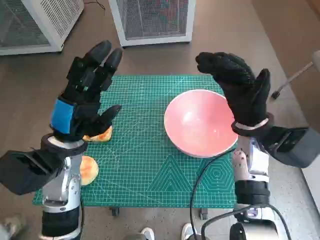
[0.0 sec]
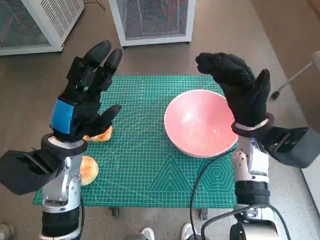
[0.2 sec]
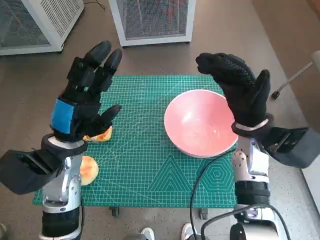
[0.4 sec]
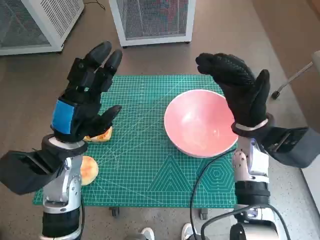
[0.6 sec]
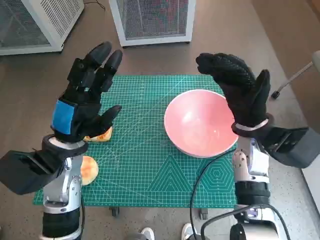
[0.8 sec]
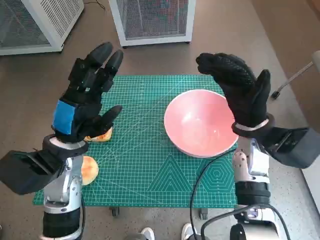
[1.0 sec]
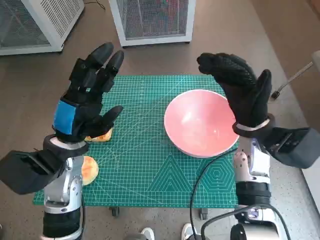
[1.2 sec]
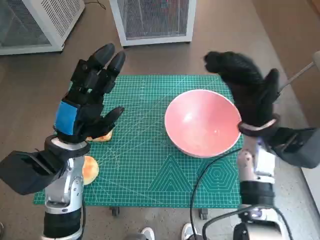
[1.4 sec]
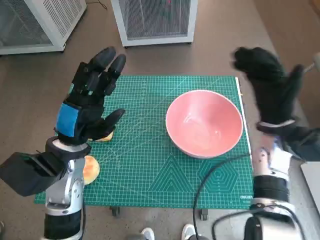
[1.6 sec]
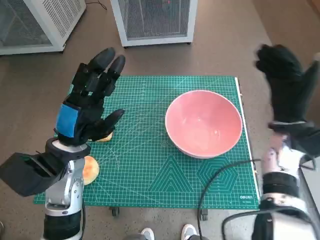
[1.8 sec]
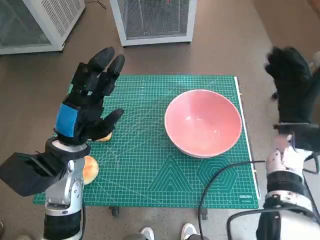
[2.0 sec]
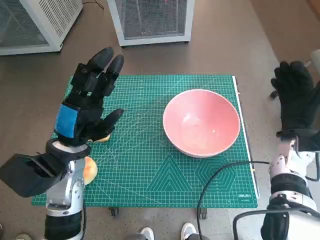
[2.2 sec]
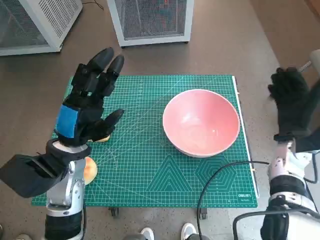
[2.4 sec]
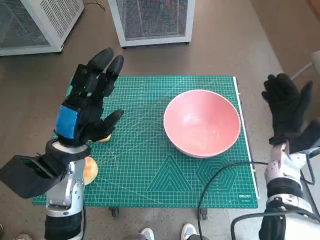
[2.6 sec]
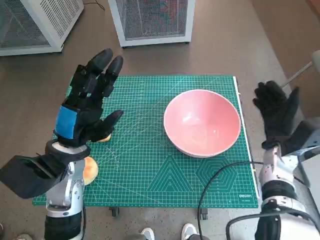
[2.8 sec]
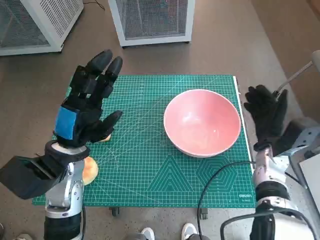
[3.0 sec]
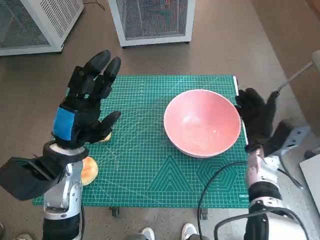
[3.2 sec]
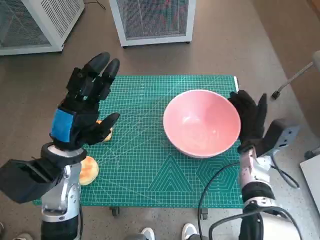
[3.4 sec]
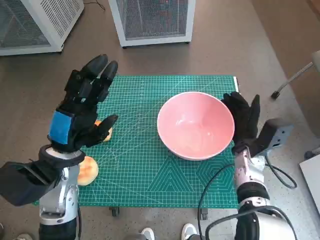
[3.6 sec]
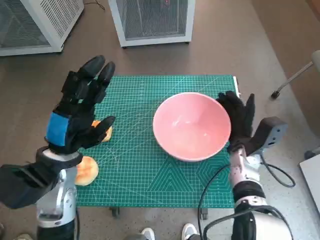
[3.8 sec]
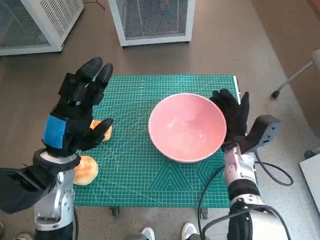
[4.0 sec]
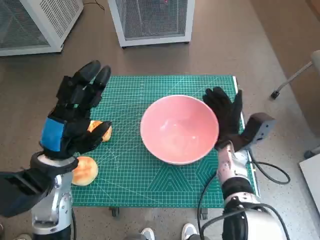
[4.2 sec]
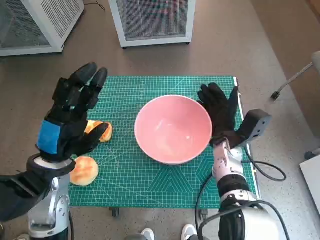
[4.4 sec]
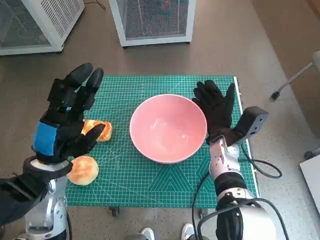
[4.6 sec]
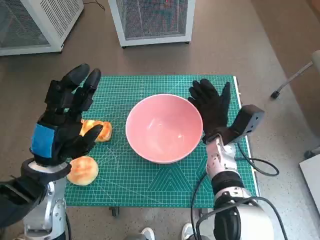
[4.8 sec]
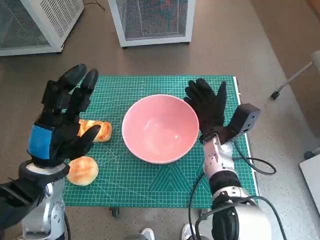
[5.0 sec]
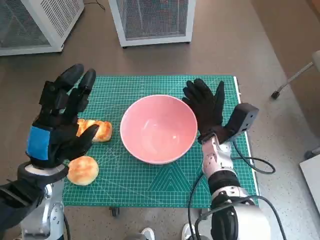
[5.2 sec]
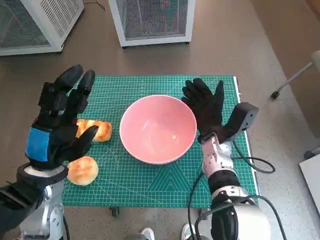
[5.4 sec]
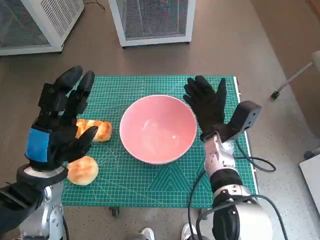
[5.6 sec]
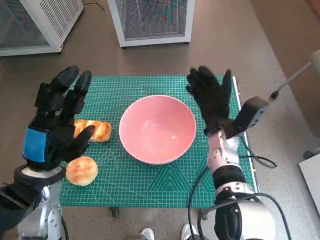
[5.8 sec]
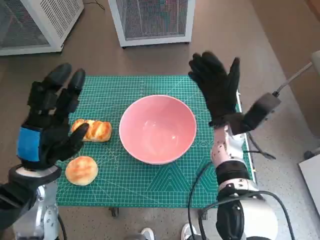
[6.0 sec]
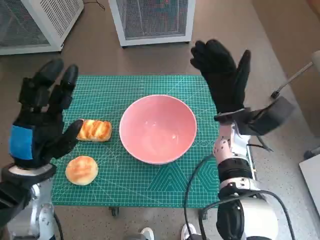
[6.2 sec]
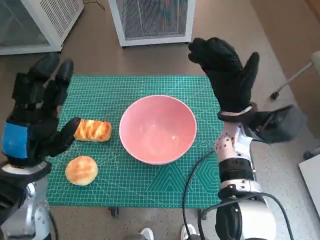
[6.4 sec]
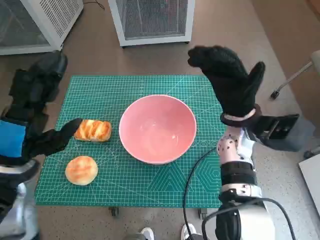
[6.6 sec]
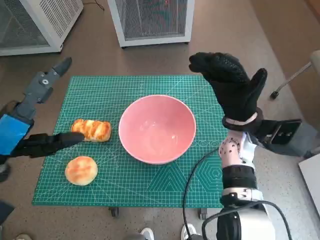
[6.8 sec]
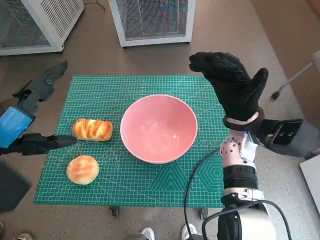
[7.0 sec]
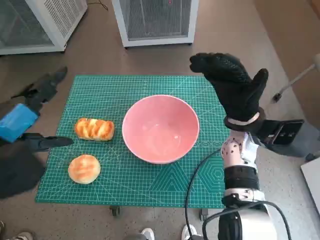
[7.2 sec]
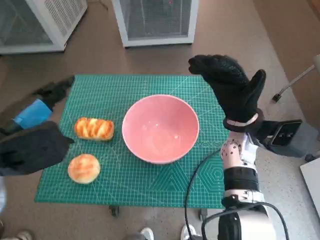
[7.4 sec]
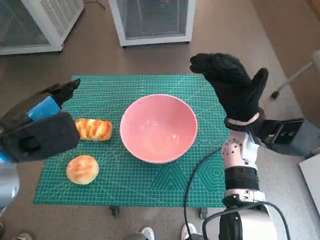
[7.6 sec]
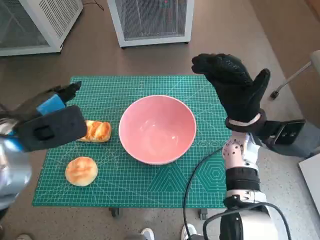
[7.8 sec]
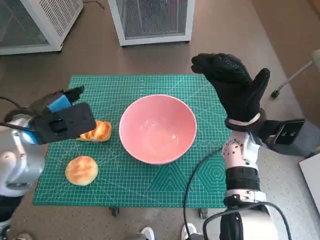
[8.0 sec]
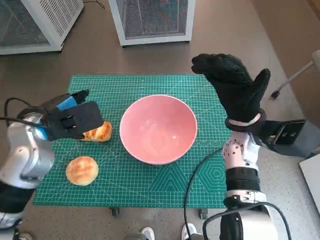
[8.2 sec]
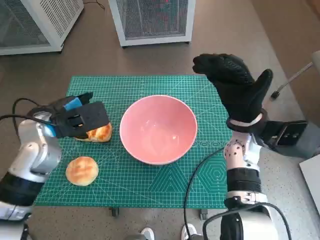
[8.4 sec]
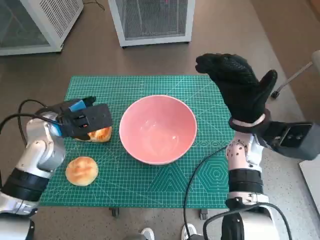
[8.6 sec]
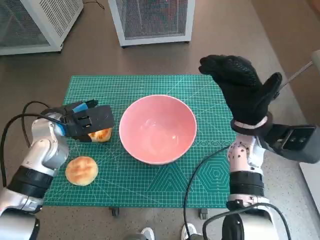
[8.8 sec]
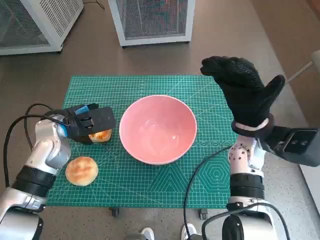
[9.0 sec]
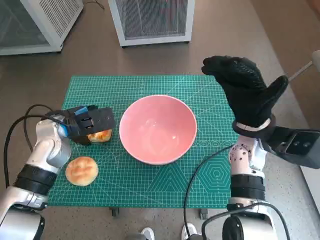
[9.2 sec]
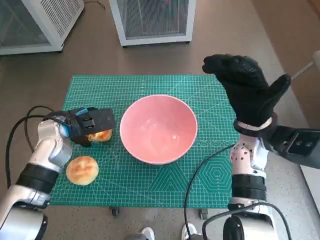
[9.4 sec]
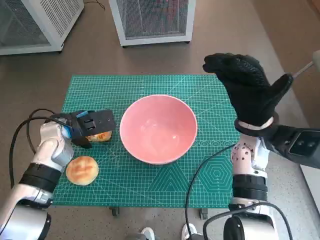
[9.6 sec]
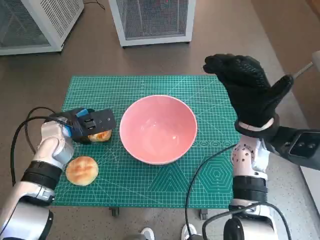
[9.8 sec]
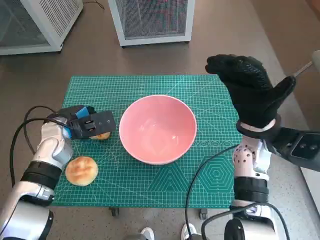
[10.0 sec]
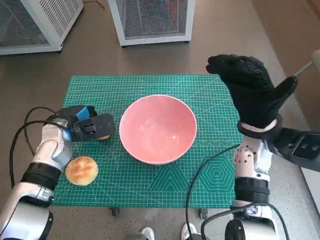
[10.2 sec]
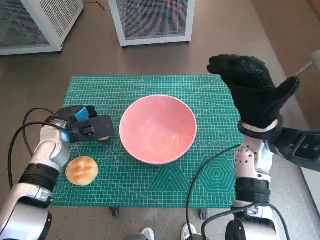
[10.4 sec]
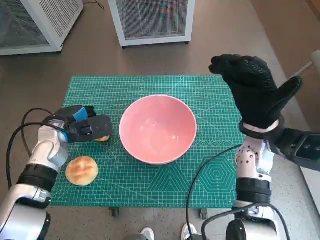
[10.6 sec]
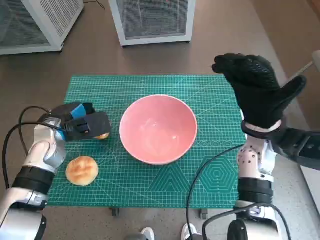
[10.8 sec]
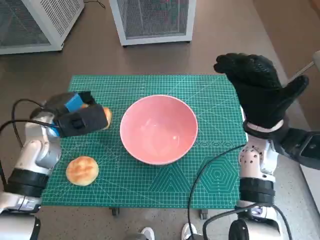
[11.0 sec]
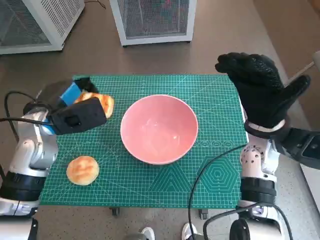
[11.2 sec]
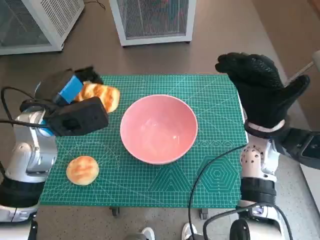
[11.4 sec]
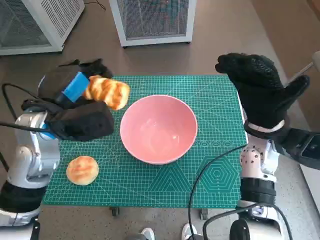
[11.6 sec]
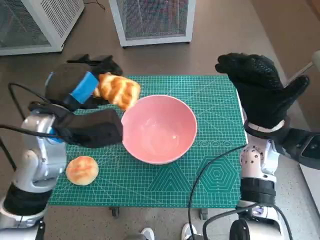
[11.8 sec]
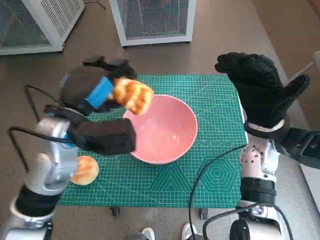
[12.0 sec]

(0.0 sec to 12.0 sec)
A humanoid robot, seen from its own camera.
Task of the whole recording: Push the bowl into the center of the table and put the bread into the bowl.
Step, 0.0 sec - 5.6 sec: Move the pink bowl to the center of table with right hand.
Step, 5.8 sec - 9.8 sec: Grasp the long bread with left hand.
1.6 sec - 3.0 sec: The right hand is displaced downward by about 10 cm.
3.0 sec - 4.4 sec: The right hand goes approximately 10 cm to the left.
4.4 sec - 6.0 sec: The right hand moves some 5 cm.
6.0 sec - 7.6 sec: The left hand goes some 10 cm upward.
7.6 sec - 9.0 sec: The left hand shifts about 15 cm forward and downward.
9.0 sec - 10.4 sec: The hands move only a little.
10.4 sec - 12.0 sec: The left hand is displaced upward, to the right and backward by some 15 cm.

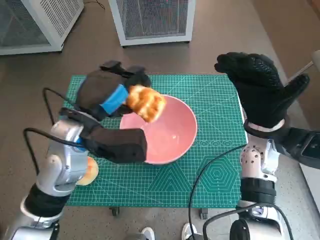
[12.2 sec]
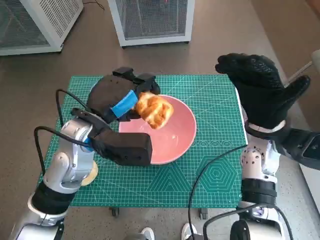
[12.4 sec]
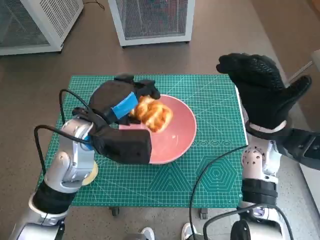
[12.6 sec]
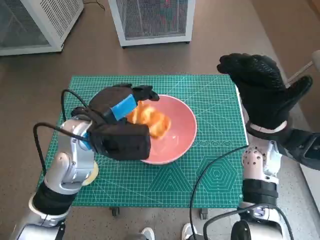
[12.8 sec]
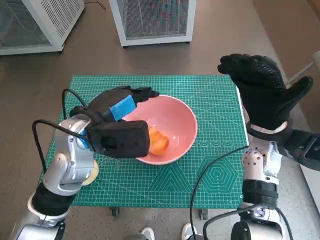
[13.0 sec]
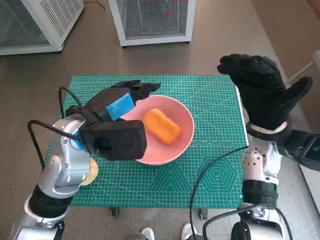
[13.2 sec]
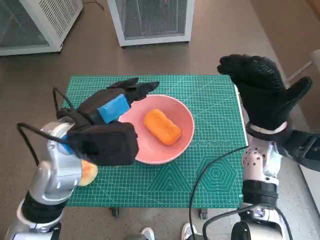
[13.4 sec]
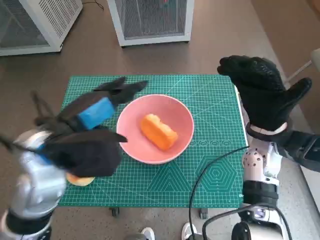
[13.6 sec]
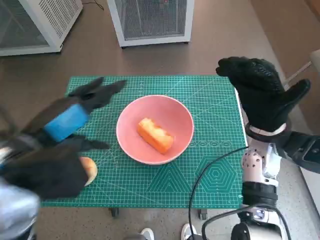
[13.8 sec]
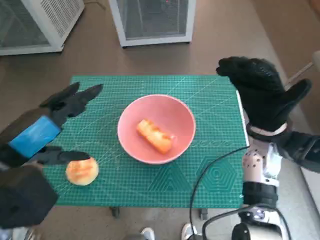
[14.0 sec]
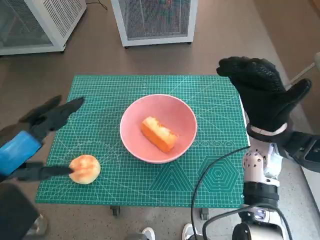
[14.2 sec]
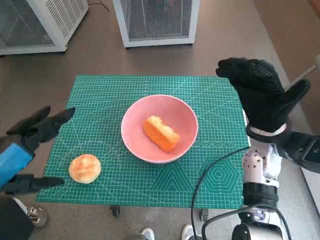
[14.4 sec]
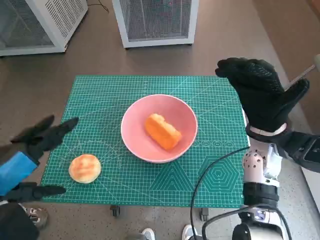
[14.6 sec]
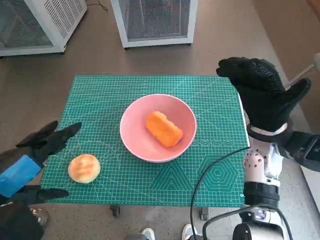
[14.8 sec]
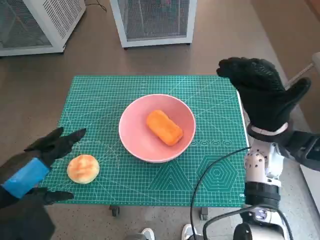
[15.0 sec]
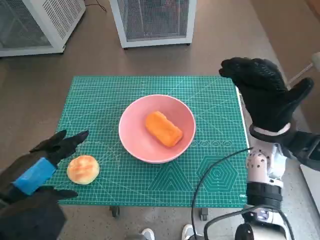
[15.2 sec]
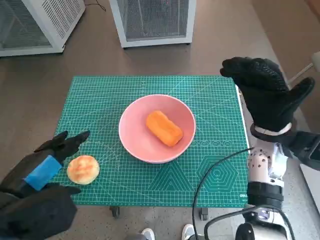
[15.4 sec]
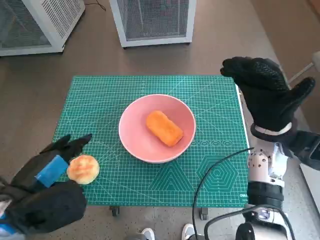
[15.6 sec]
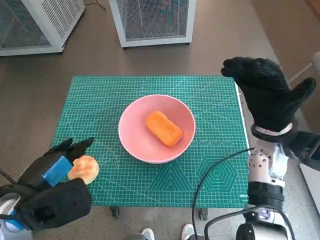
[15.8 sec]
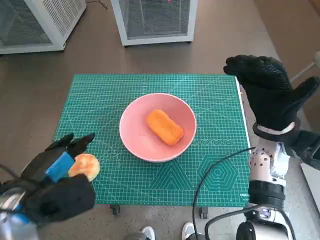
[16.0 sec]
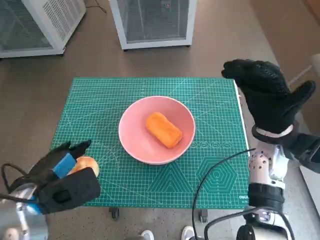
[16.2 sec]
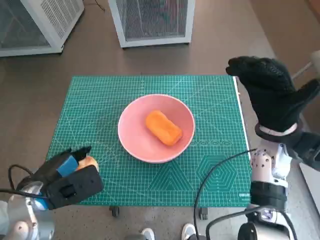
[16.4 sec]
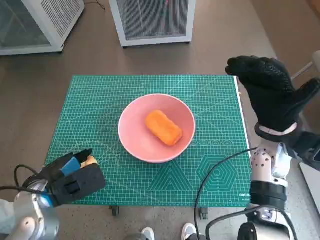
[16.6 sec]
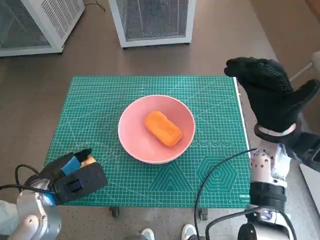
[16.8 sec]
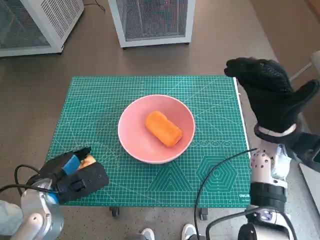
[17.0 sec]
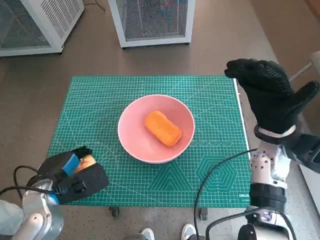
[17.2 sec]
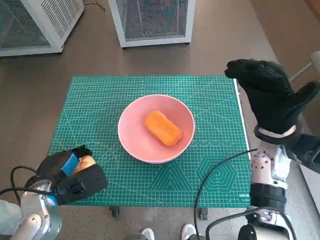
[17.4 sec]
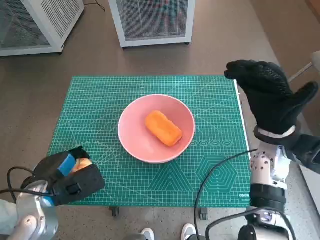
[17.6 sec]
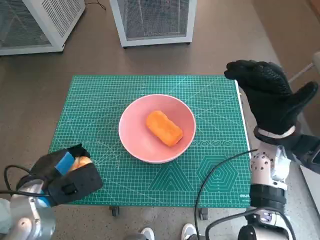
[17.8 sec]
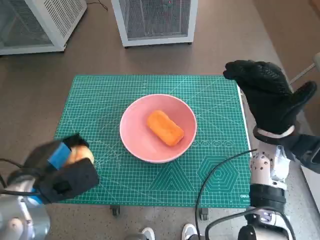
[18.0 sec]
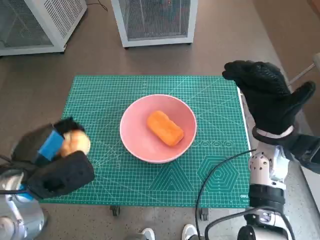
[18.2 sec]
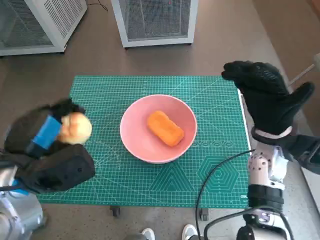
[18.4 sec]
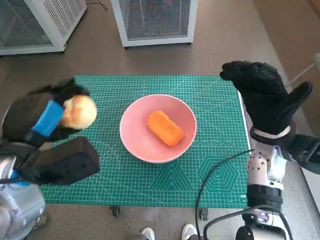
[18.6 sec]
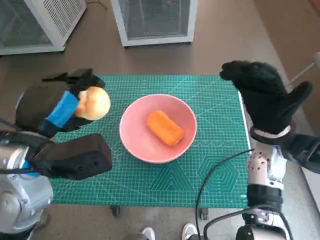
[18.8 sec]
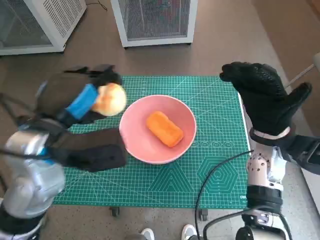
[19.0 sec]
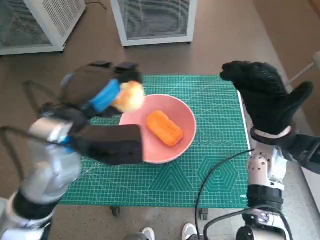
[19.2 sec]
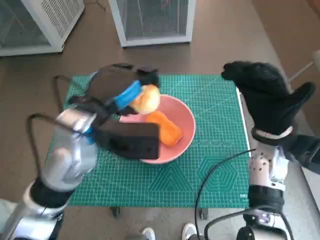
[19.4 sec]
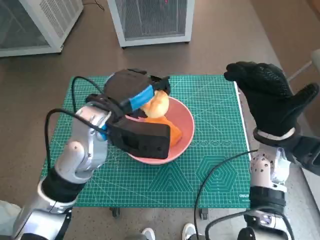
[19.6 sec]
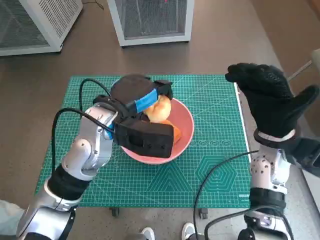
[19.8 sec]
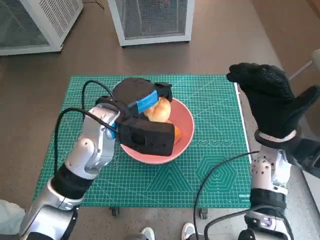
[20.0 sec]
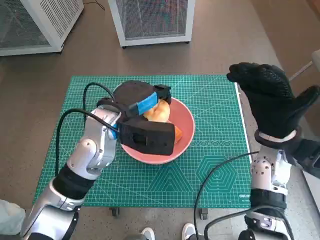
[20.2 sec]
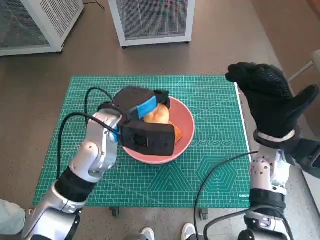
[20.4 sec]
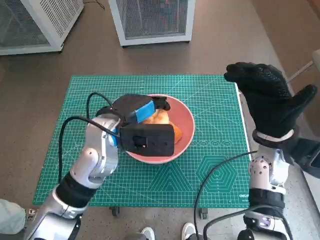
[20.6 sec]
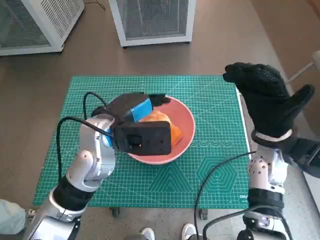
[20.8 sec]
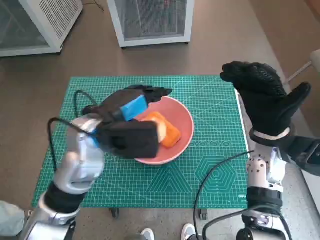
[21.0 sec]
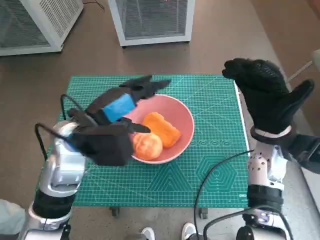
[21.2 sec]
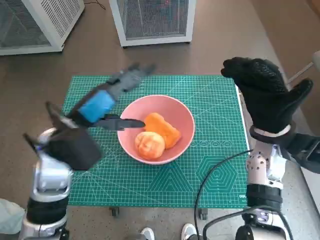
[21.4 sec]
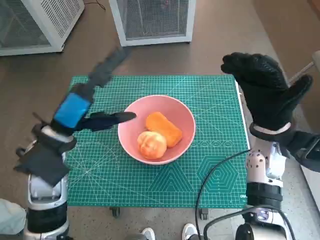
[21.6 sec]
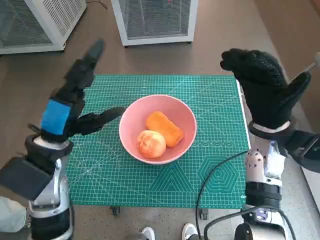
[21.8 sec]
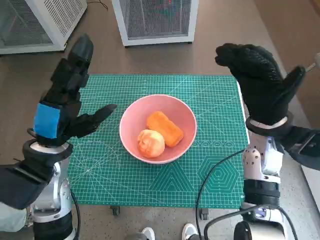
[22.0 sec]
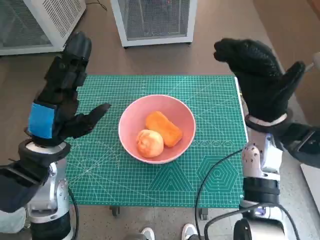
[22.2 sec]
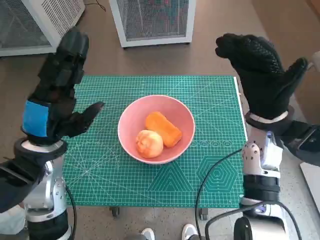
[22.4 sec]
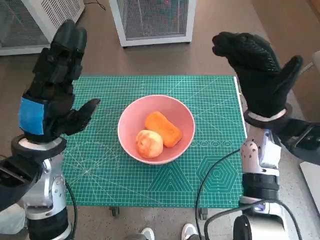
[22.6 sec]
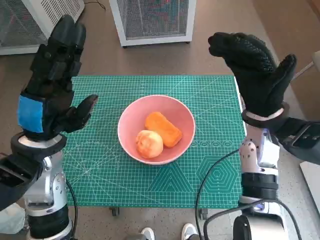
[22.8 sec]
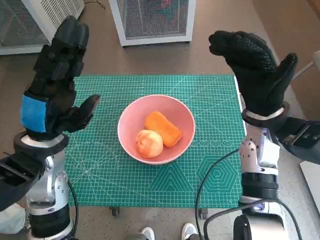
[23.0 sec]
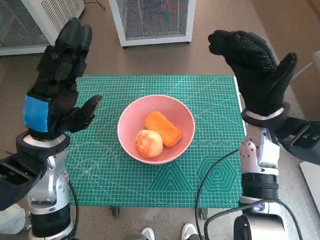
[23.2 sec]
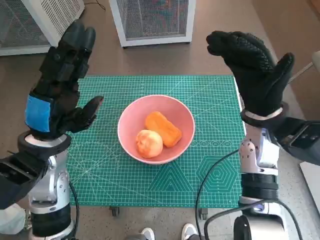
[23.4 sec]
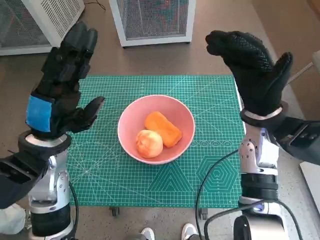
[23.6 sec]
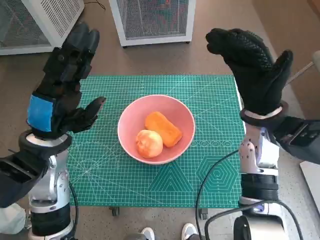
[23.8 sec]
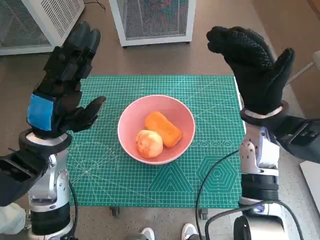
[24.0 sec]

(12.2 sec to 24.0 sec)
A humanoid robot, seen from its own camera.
Task of the whole recording: Push the bowl into the center of the table and put the bread into the bowl.
Step, 13.0 sec - 17.0 sec: Grasp the round bread with left hand.
Step, 17.2 sec - 20.8 sec: Place the round bread in pink bowl with left hand.
13.6 sec - 15.2 sec: The left hand travels backward and to the left by some 15 cm.
15.2 sec - 16.6 sec: The left hand travels downward and forward by roughly 10 cm.
18.2 sec - 19.6 sec: The left hand shifts some 15 cm to the right, forward and upward.
21.0 sec - 22.6 sec: The left hand shifts some 10 cm to the left.
22.6 sec - 24.0 sec: Both hands stay put.
